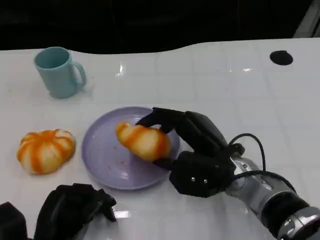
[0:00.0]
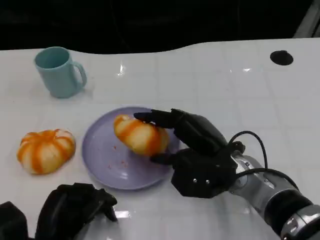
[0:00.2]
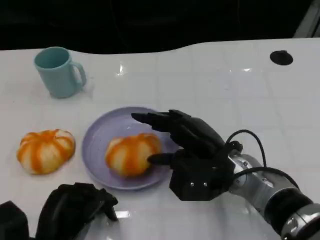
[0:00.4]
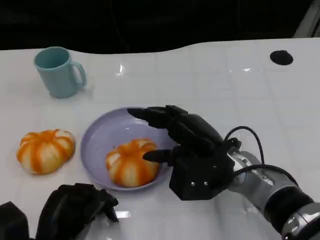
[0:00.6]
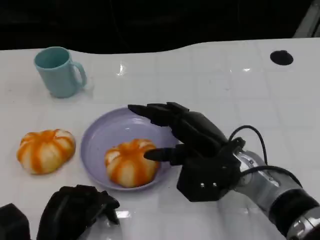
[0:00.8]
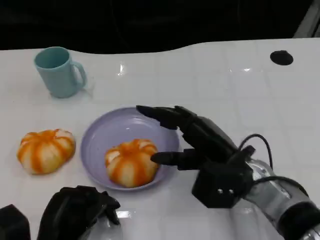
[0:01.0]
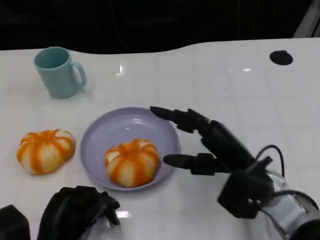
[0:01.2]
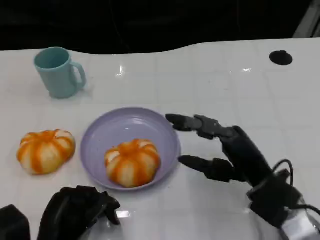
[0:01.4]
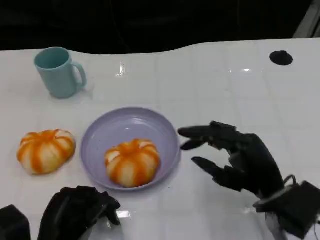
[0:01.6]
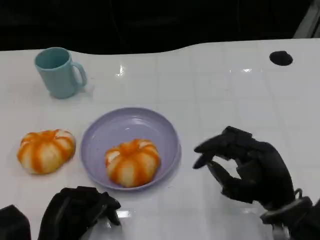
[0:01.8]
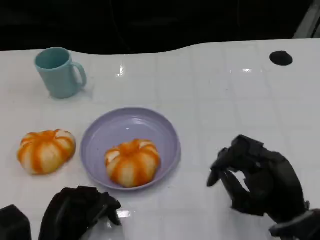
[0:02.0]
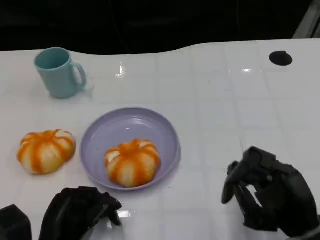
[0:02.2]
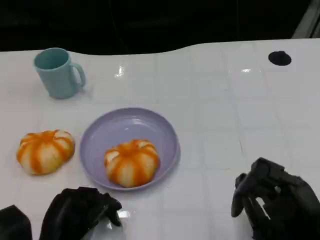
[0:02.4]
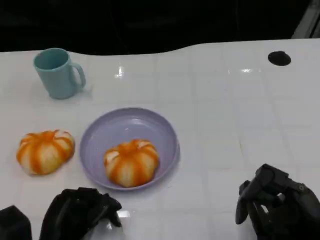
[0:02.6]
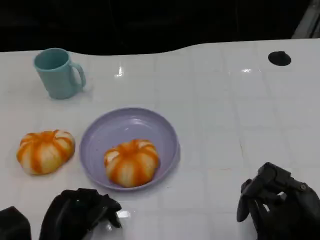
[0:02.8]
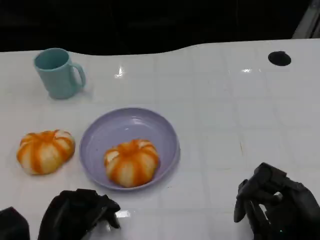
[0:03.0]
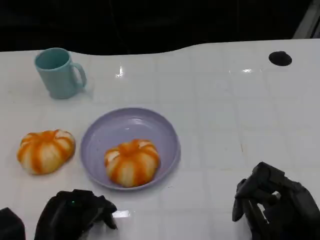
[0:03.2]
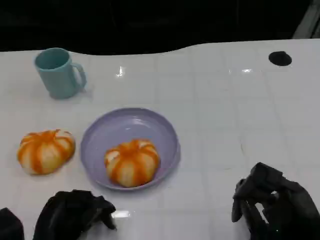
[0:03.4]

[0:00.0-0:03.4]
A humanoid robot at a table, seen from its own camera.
Task of the whole recording: Grasp the bread from the table and place it into the plate.
0:00.0 to 0:01.6: The right hand is displaced to the right and backward by about 10 cm.
0:01.6 to 0:03.4: The right hand goes some 5 cm backward.

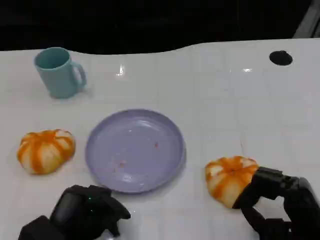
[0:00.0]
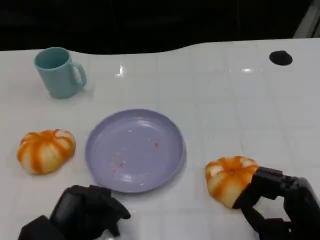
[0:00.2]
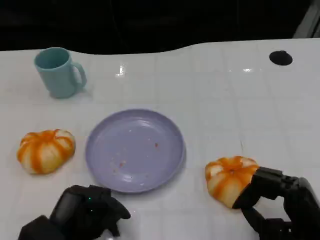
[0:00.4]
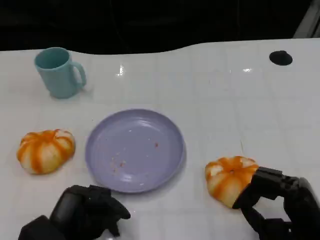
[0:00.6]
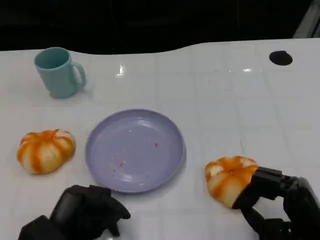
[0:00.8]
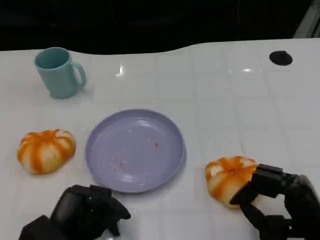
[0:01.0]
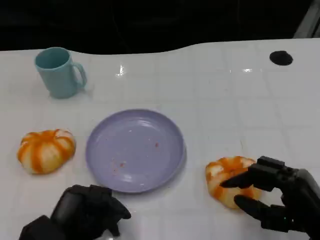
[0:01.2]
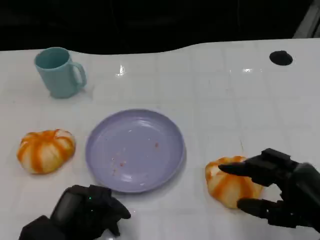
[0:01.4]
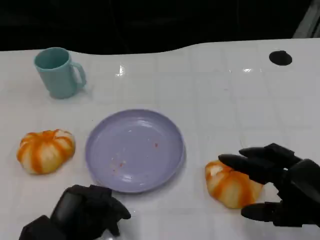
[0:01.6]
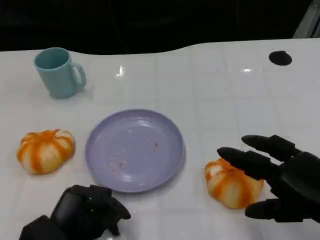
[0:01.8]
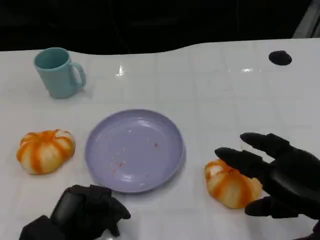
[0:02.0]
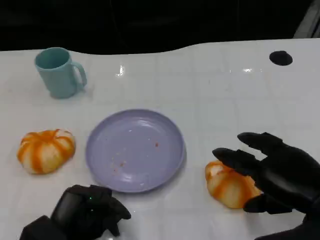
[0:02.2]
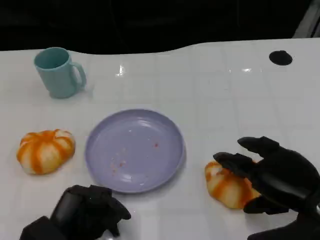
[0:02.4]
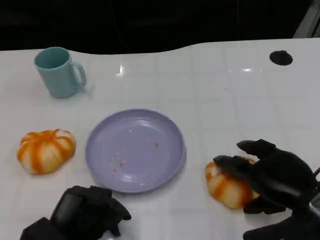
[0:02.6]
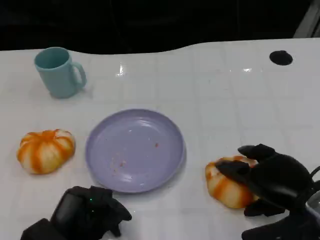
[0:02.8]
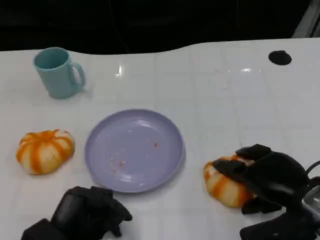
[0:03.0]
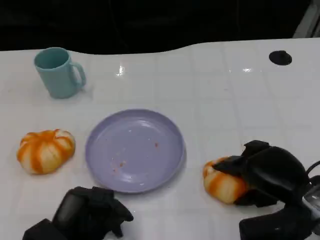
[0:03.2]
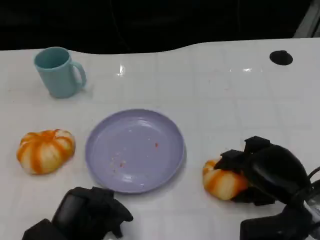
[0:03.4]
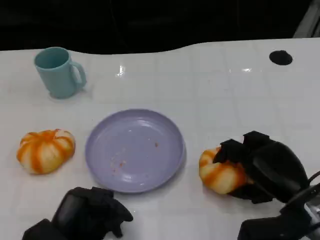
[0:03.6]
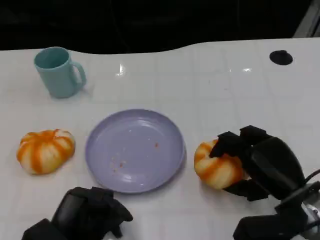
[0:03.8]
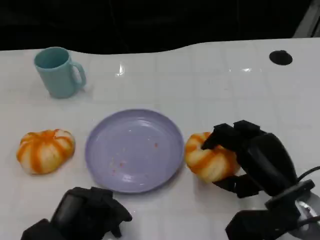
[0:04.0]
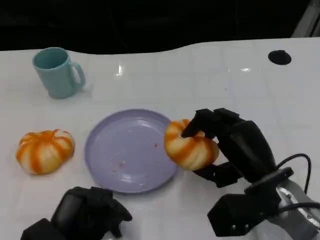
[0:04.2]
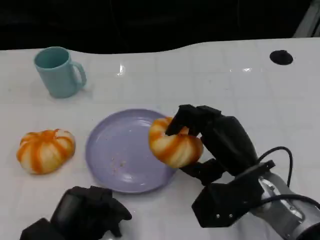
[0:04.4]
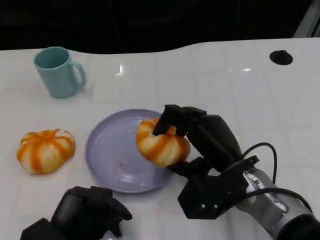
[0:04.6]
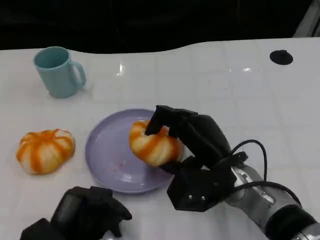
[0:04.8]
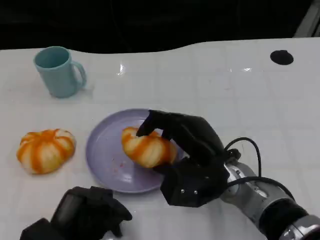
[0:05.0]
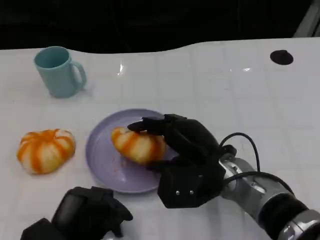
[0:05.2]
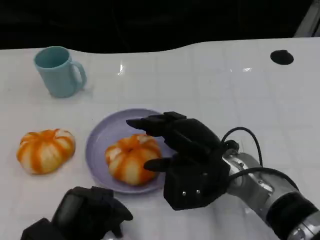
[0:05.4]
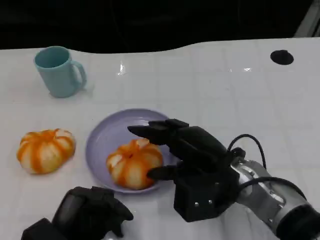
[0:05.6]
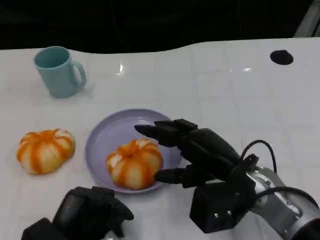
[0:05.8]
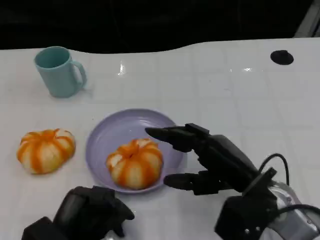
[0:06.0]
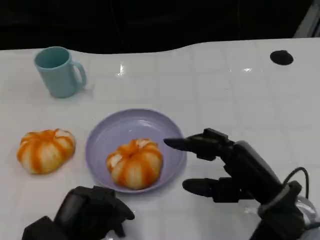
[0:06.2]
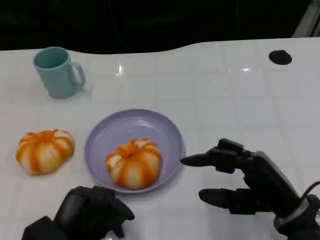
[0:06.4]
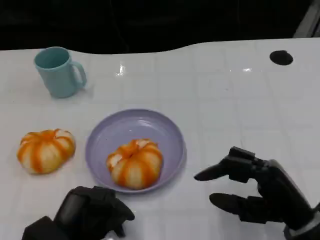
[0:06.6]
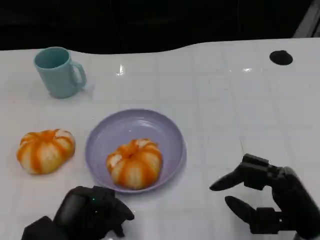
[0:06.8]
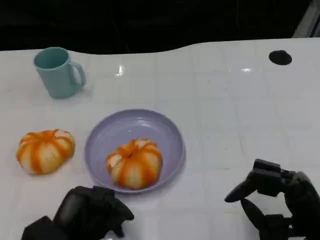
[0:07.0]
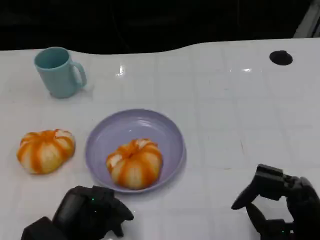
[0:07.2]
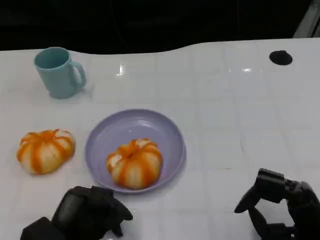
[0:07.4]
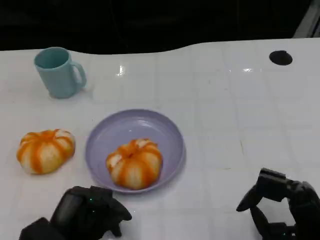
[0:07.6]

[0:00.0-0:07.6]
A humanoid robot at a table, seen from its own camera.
Task of the whole recording: Grasp the bread from the table and place it into the plate.
0:00.0 to 0:01.6: The right hand is displaced upward by about 10 cm.
0:01.6 to 0:03.0: The right hand goes approximately 5 cm forward.
0:03.0 to 0:04.6: The right hand shifts about 10 cm to the left.
0:04.6 to 0:06.0: The right hand changes place by some 5 cm.
0:06.0 to 0:07.6: The right hand shifts approximately 10 cm to the right, backward and downward.

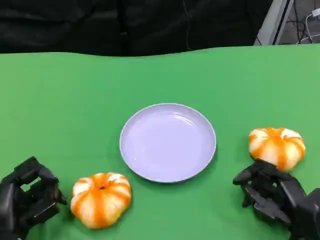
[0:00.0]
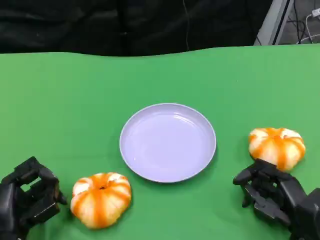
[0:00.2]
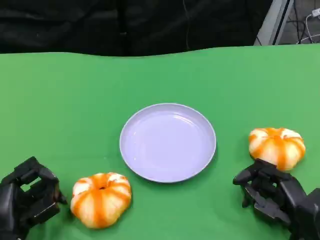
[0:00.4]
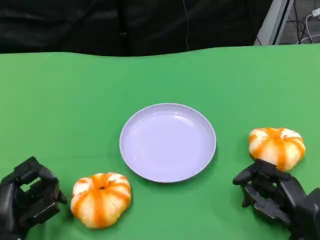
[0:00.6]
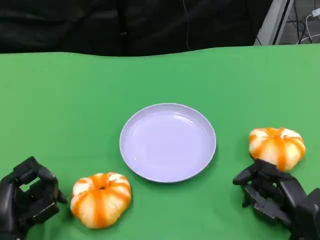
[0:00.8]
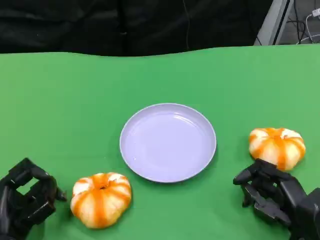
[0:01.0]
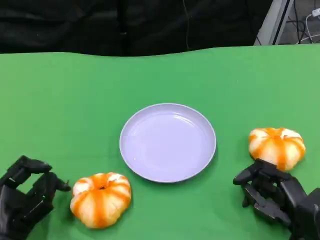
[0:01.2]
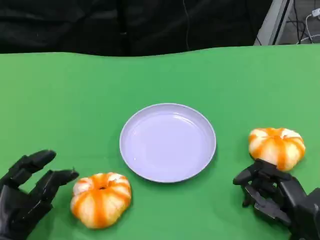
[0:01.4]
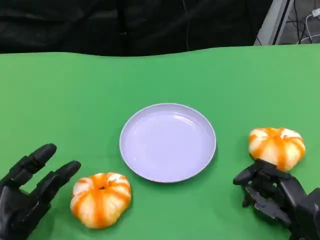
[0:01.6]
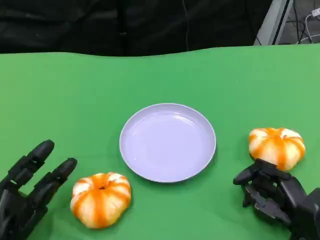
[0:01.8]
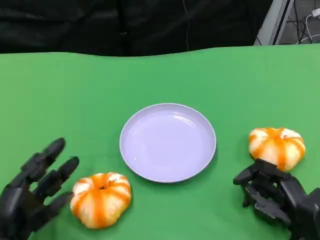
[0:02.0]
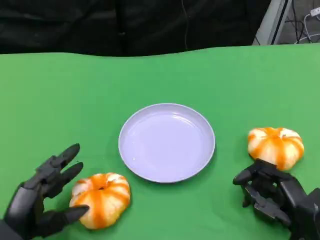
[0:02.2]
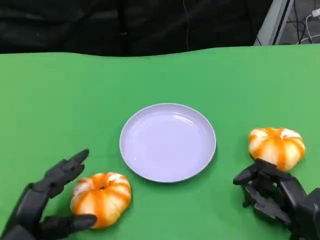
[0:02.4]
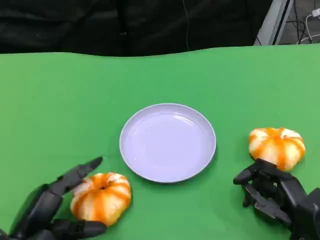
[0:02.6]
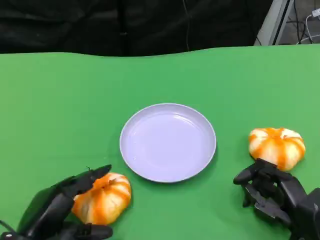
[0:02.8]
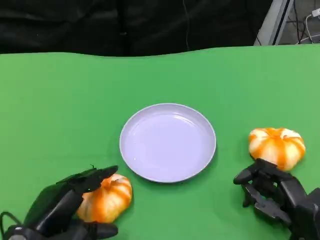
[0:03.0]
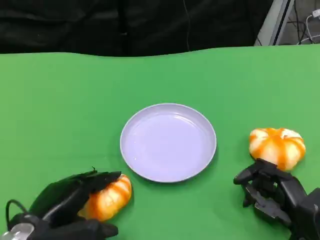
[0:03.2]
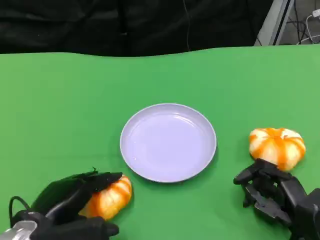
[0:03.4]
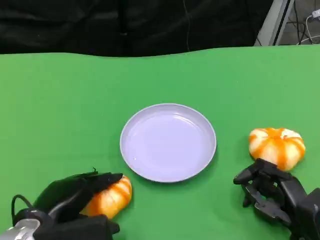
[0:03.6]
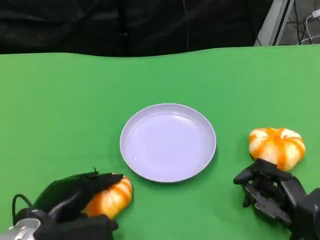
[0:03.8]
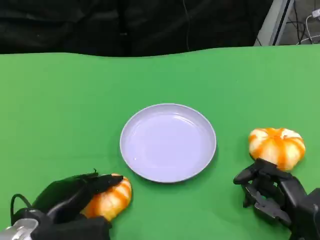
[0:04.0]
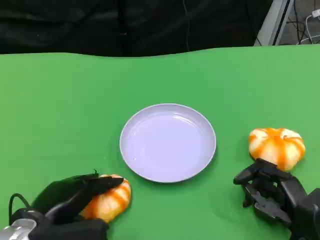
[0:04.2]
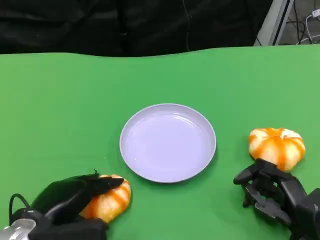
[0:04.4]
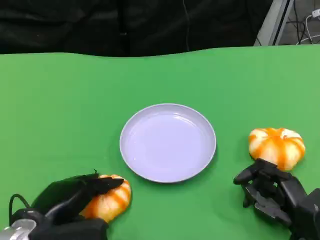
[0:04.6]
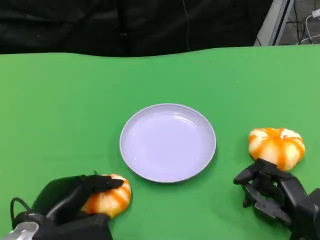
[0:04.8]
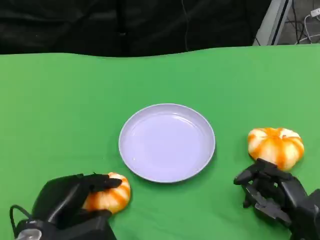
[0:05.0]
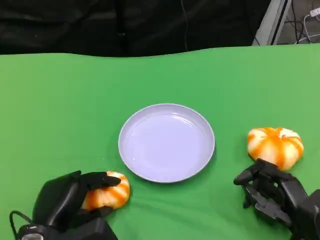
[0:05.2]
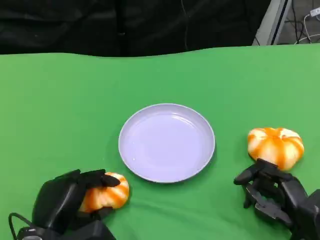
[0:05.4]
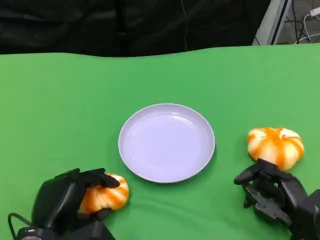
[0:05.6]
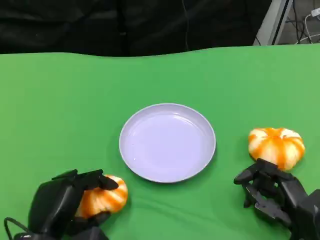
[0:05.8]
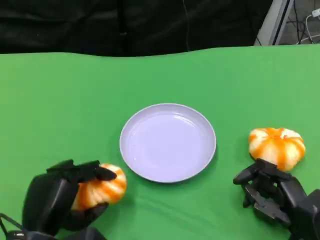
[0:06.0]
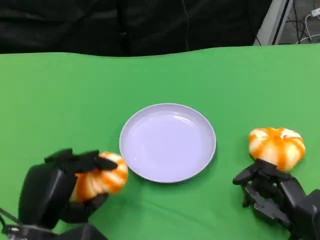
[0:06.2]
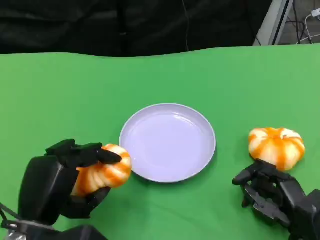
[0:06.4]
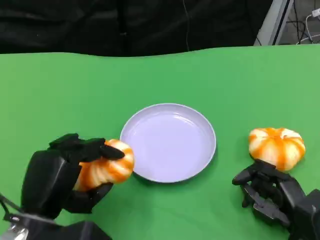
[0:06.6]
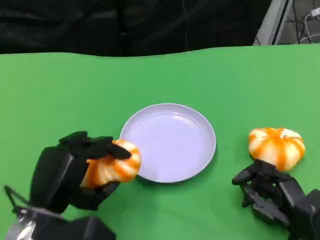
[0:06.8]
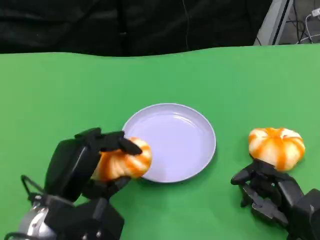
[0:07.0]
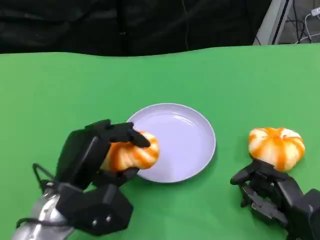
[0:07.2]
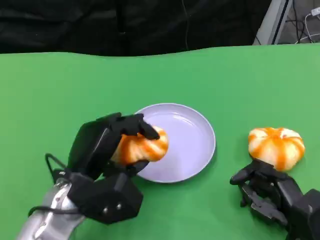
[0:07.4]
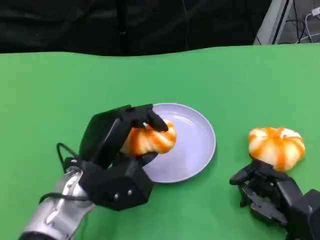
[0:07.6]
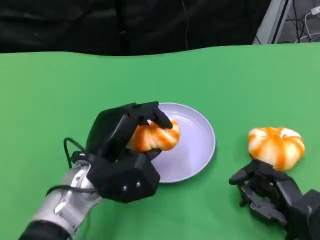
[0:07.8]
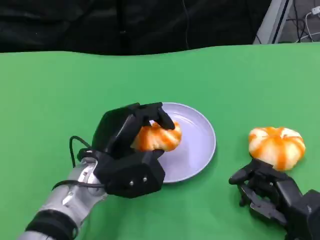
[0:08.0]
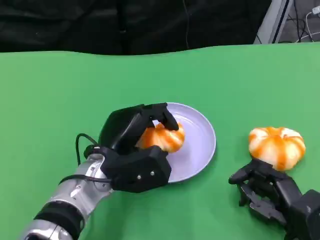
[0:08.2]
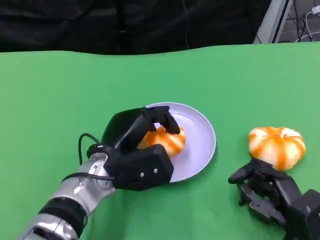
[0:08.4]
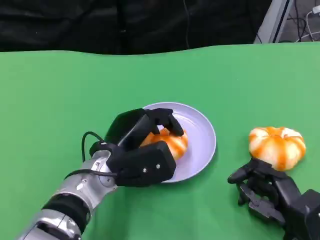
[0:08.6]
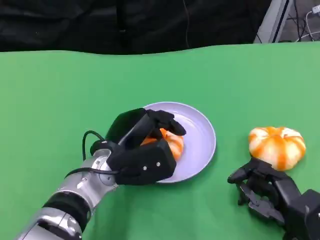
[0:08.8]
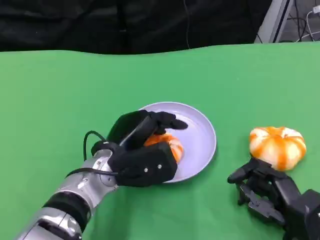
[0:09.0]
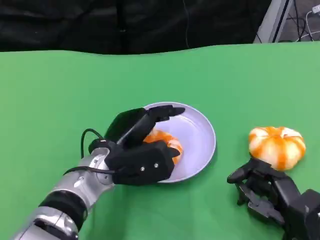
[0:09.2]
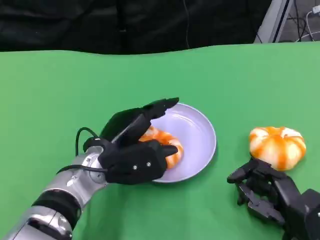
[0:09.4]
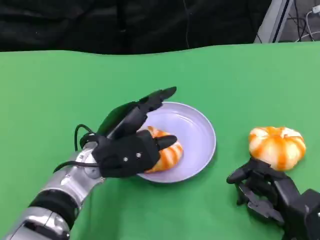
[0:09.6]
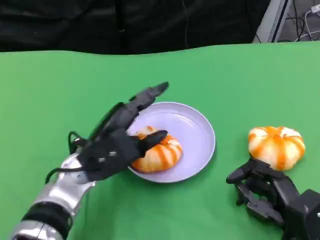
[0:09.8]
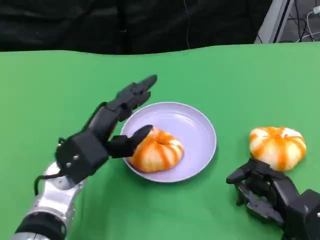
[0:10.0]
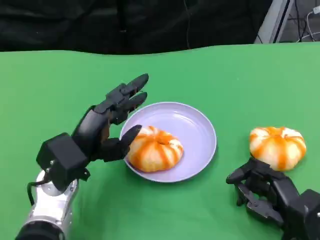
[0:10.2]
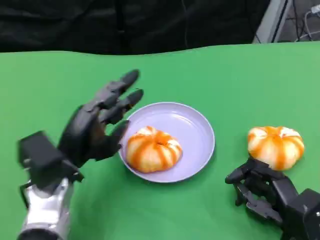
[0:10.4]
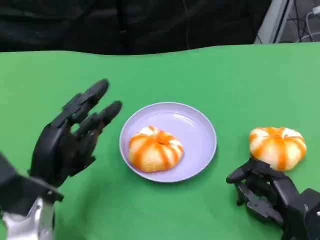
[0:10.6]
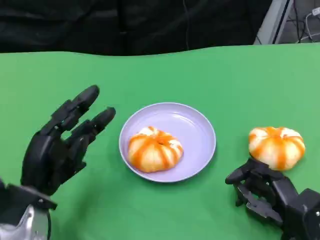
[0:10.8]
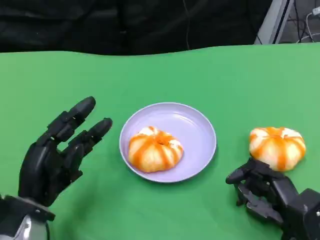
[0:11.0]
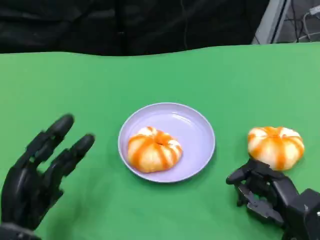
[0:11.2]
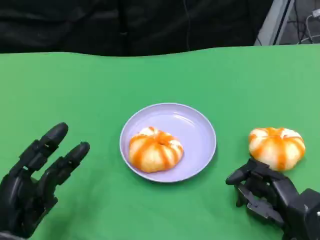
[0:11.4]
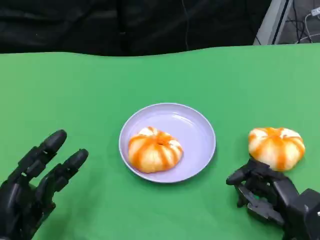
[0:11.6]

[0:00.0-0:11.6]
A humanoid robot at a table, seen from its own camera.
Task of the whole recording: Grasp the bread from the table and place it into the plate.
0:05.8 to 0:07.2: The left hand goes some 5 cm forward.
0:07.2 to 0:08.8: The left hand heads to the right and forward, covering roughly 10 cm.
0:08.8 to 0:10.2: The left hand heads to the left, covering some 5 cm.
0:10.2 to 0:11.6: The left hand is displaced backward, to the left and downward by about 15 cm.
